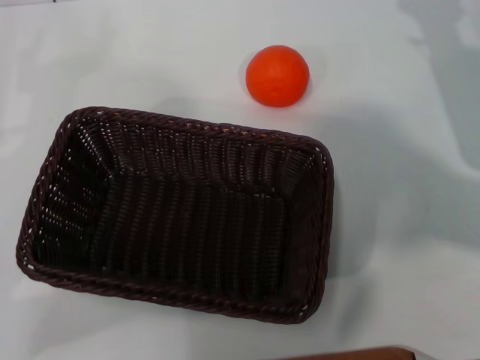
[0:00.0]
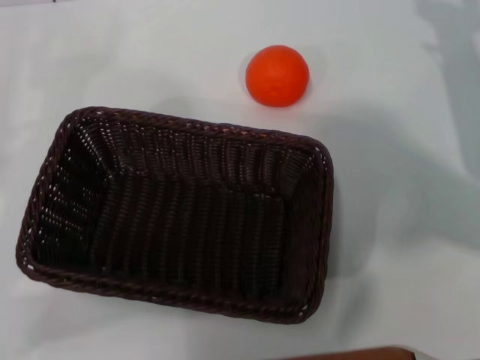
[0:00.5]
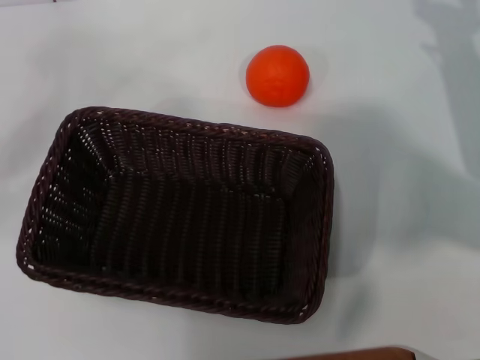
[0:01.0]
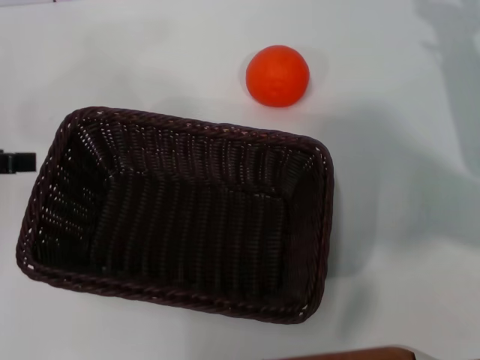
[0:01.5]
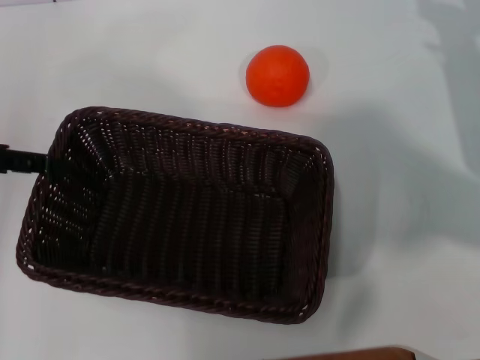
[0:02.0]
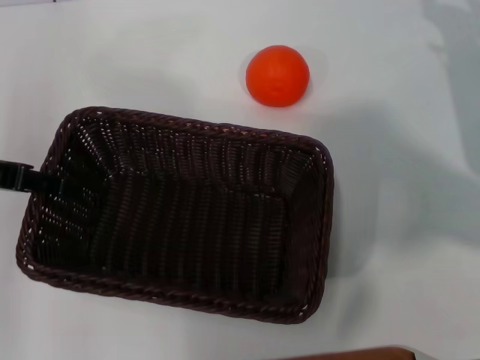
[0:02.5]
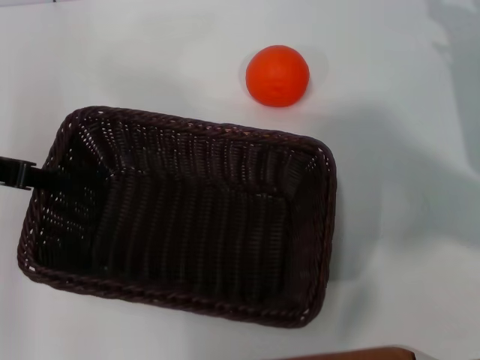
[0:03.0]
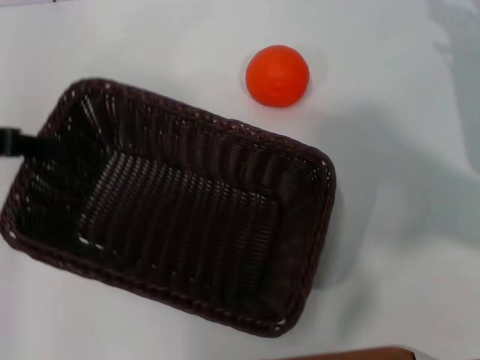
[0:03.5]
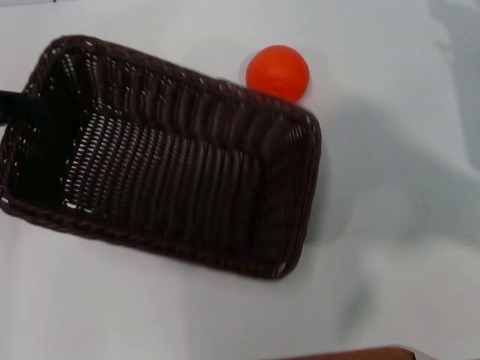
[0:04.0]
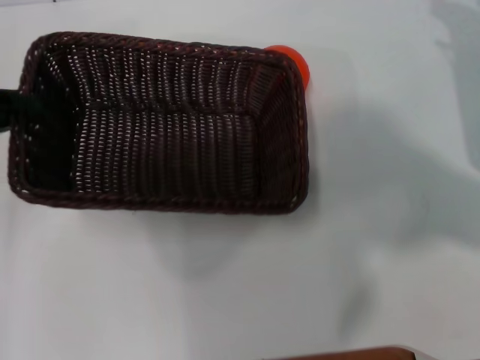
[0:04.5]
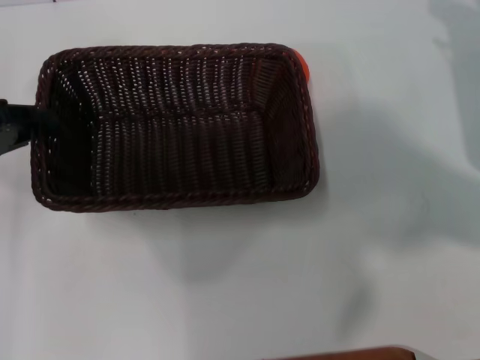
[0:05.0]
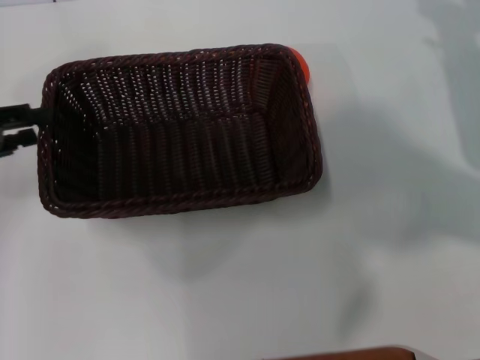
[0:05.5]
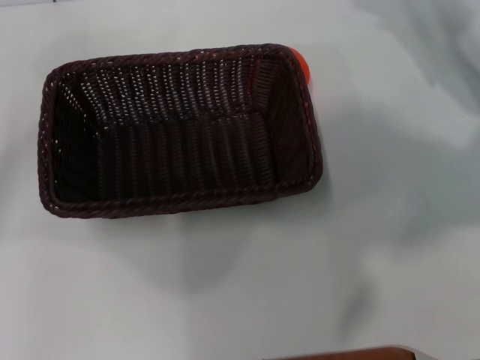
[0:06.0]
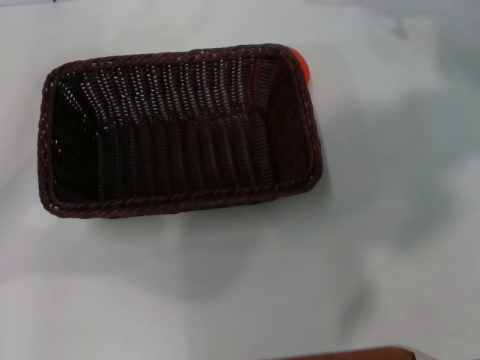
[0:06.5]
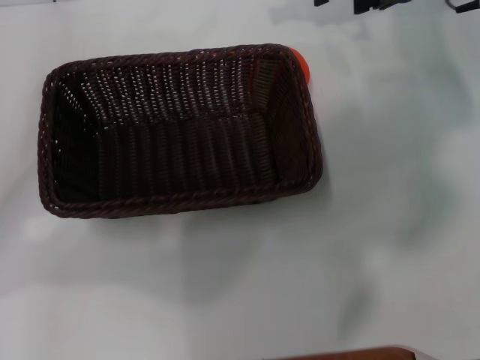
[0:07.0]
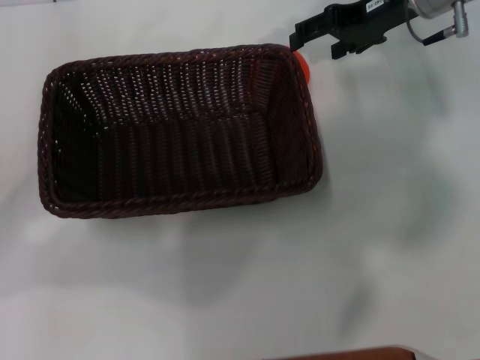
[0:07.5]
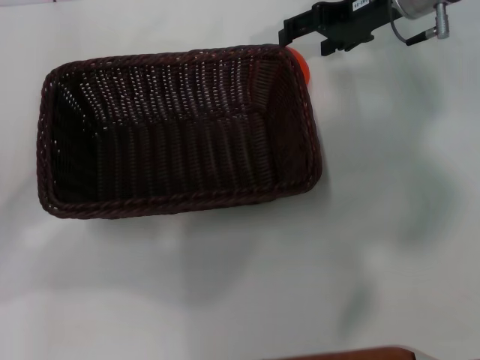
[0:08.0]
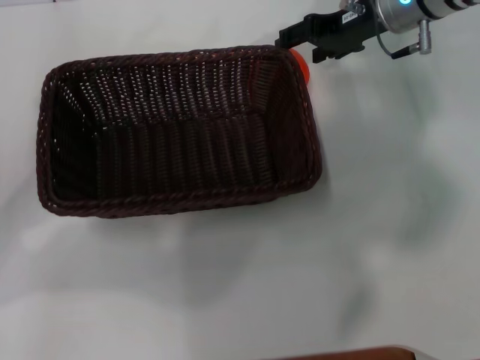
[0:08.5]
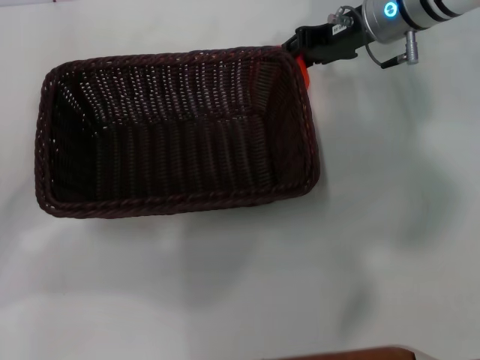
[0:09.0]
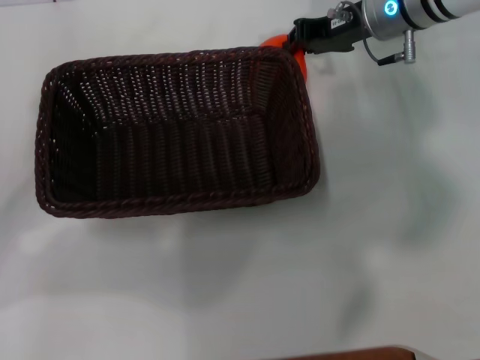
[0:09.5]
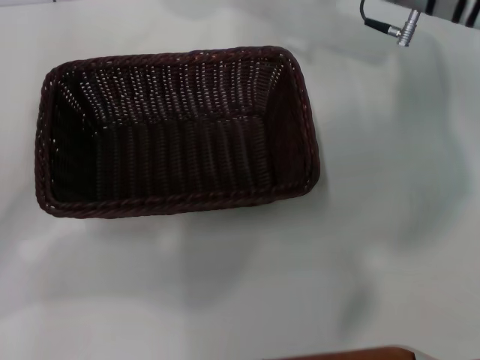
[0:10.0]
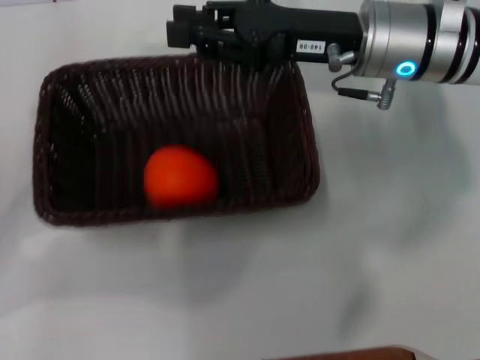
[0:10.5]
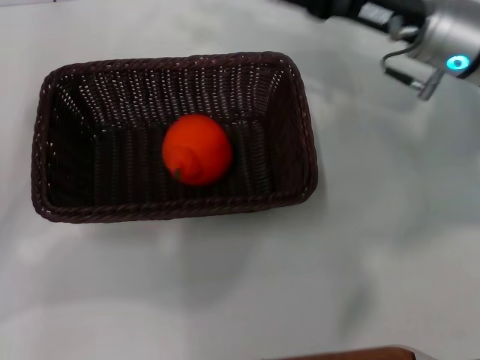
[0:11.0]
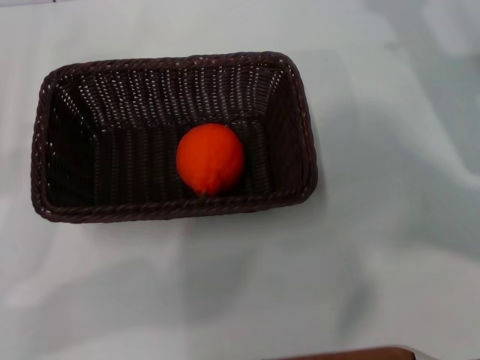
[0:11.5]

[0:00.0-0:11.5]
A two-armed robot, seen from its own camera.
Task of the whole recording: the left gripper pick up the black basket and place it horizontally in the middle of the table, the right gripper pick up the orange and place it into the black basket.
Step, 0:00.0 to 0:03.5: Pick up the dark basket with the left gripper.
Step, 0:04.5 to 0:05.5: Place the dark basket in the center of view with the left gripper.
Step, 0:06.0 to 0:09.5: Pick up the orange with the right gripper.
Step, 0:10.0 to 0:10.5: Place the orange into the dark basket with the right gripper.
0:00.0 to 0:02.0: The left gripper shifts some 15 cm upward and forward.
0:02.0 to 0:04.0: The left gripper closes up.
0:04.0 to 0:06.0: The left gripper changes place by about 5 cm, and opens up; the right gripper shifts approximately 5 cm forward.
0:06.0 to 0:07.5: The left gripper shifts by roughly 5 cm, and opens up, while the right gripper heads to the left, upward and forward, covering about 15 cm.
0:07.5 to 0:09.5: The right gripper closes up.
0:09.5 to 0:11.5: The right gripper heads backward and to the right, covering approximately 20 cm, and opens.
